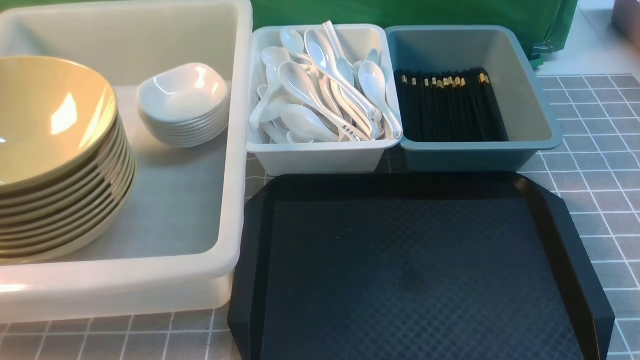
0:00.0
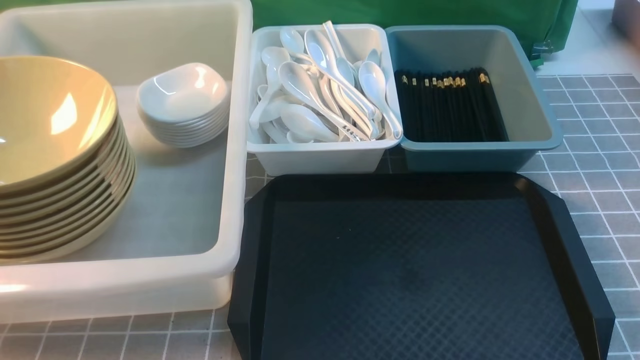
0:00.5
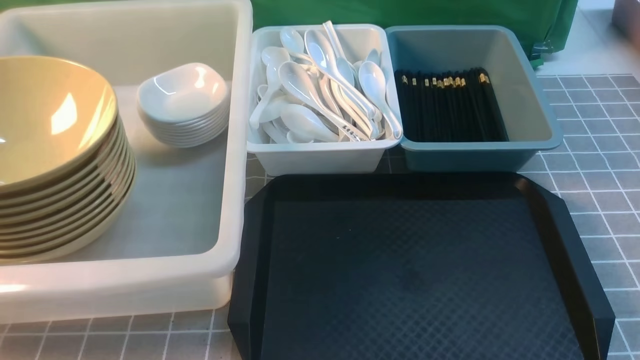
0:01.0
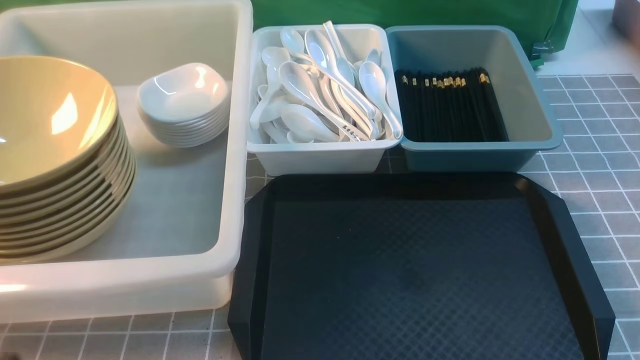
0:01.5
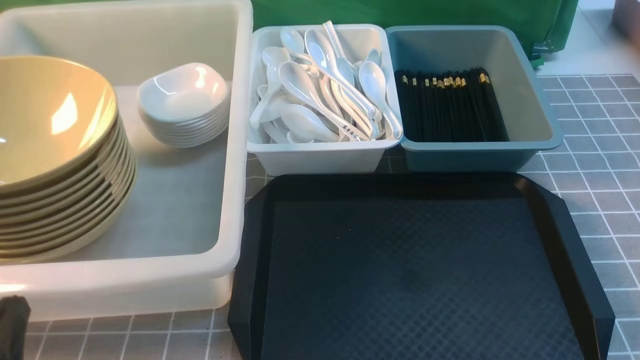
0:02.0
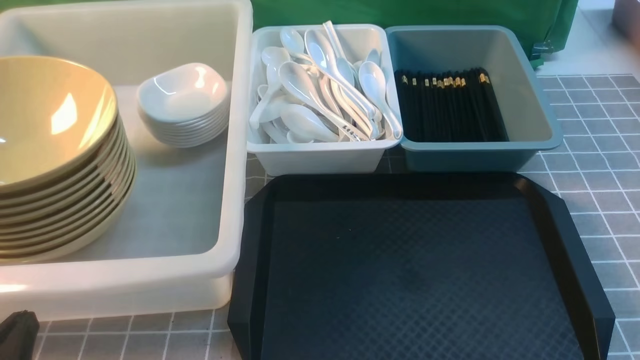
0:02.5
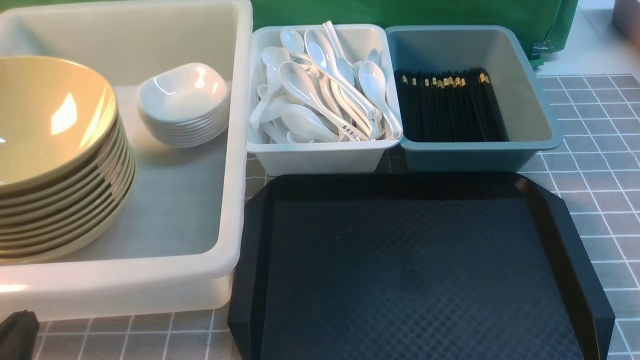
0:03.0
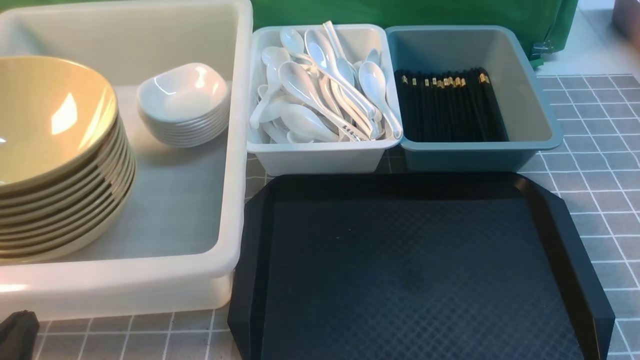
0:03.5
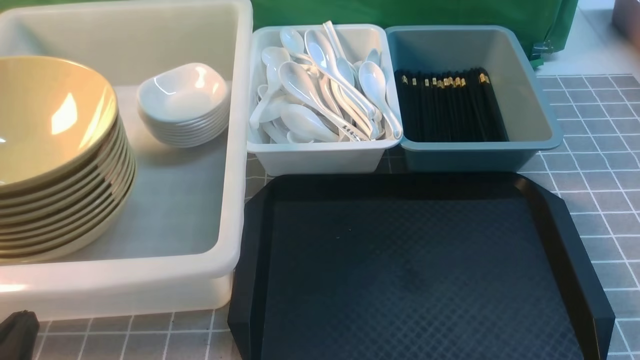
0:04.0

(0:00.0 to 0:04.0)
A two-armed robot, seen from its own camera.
Task of the whole recording: on grey table put chopsticks spoon bowls plates into blue grey white boxes.
0:00.0 - 0:02.0: The left gripper moves downward, some 15 cm.
0:02.0 - 0:04.0: Both grippers stay put.

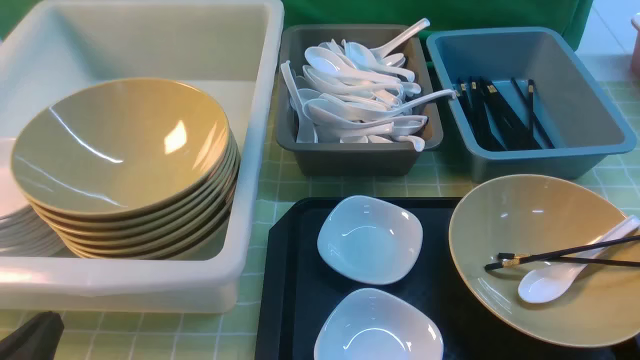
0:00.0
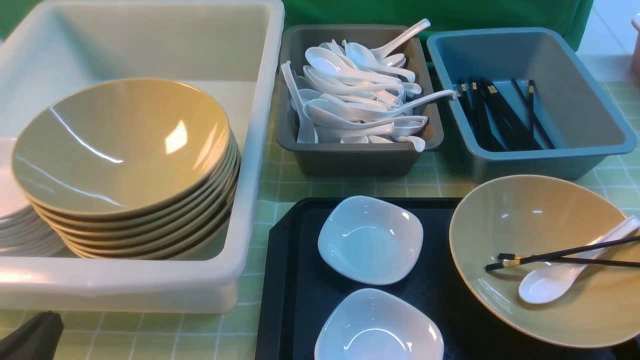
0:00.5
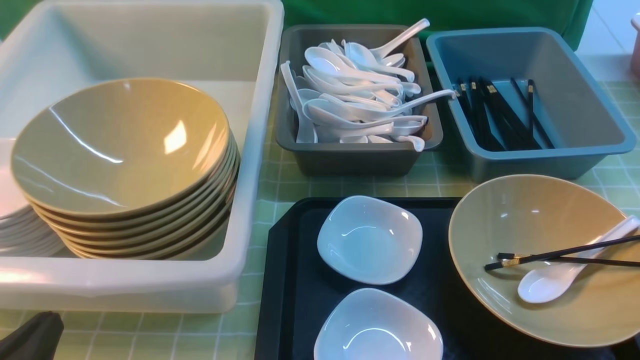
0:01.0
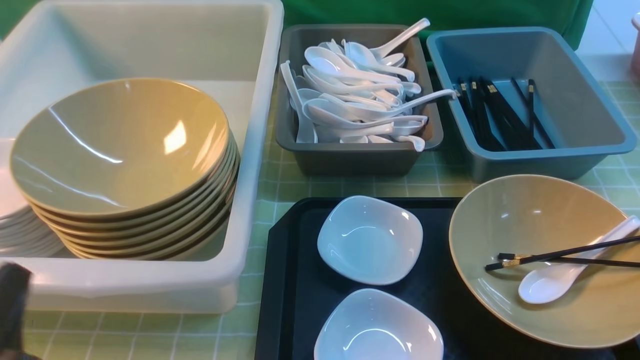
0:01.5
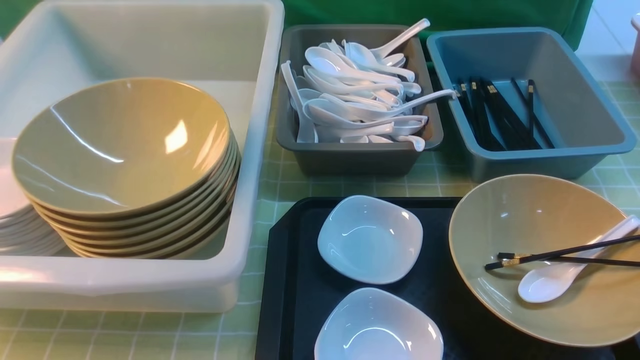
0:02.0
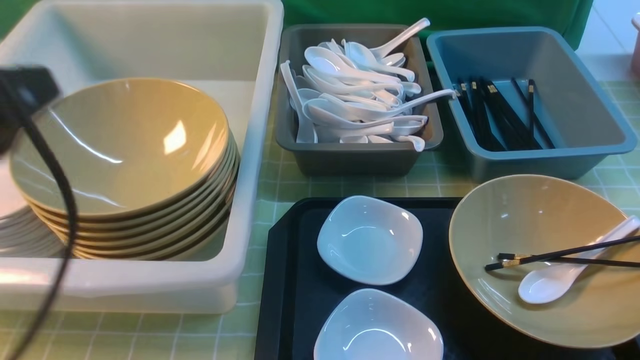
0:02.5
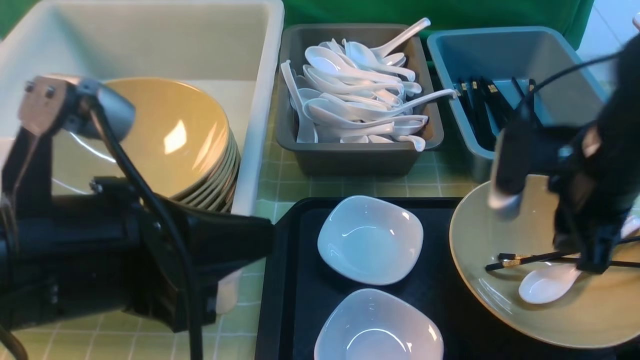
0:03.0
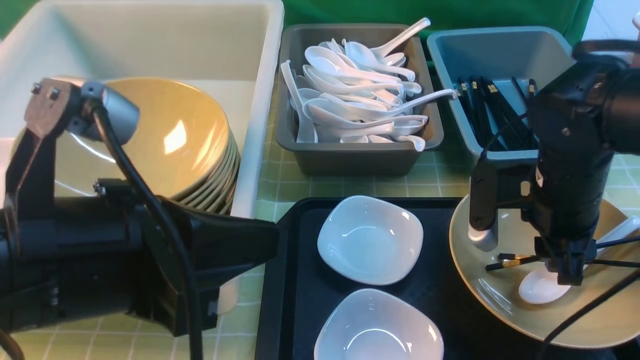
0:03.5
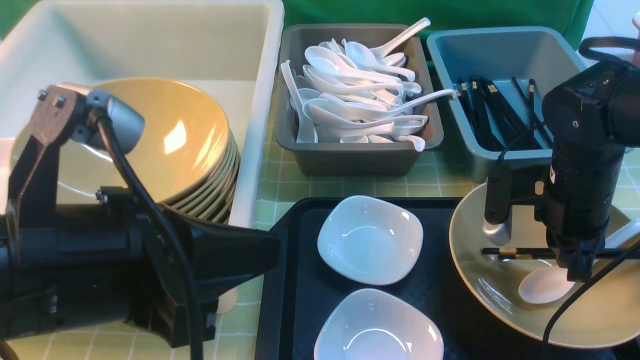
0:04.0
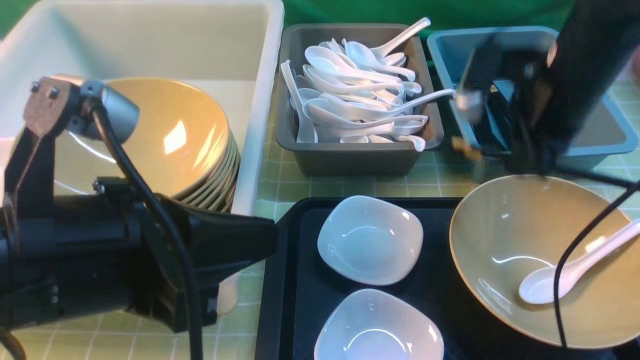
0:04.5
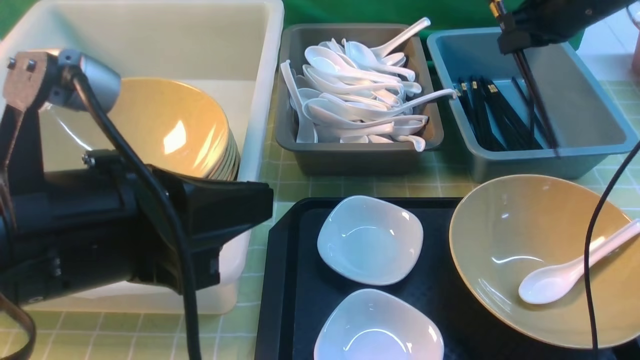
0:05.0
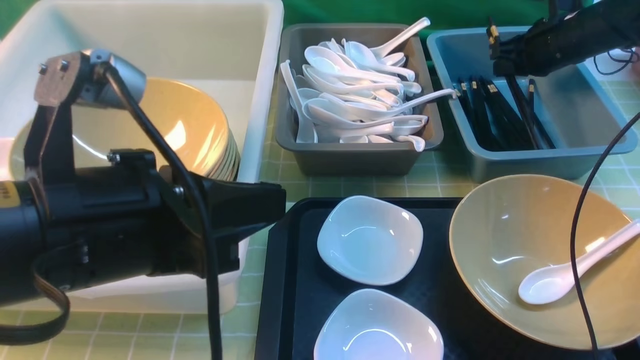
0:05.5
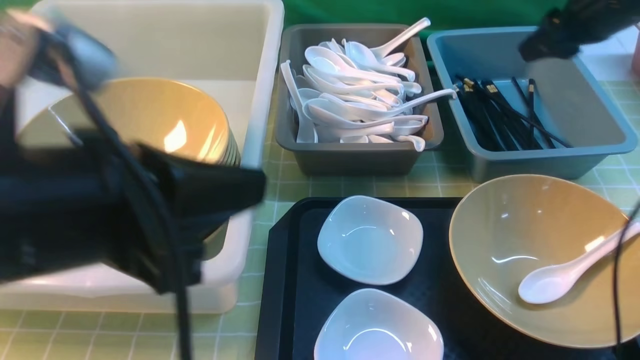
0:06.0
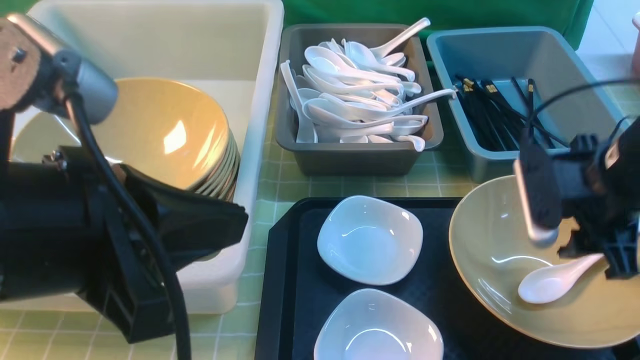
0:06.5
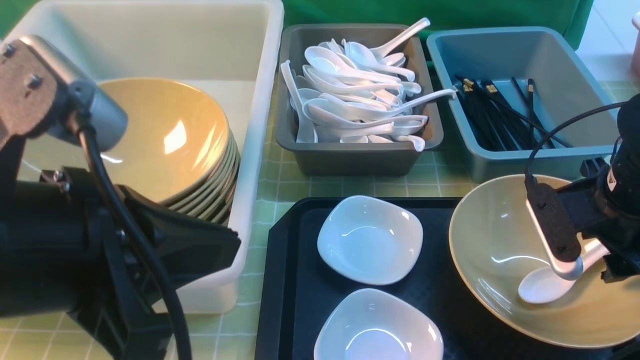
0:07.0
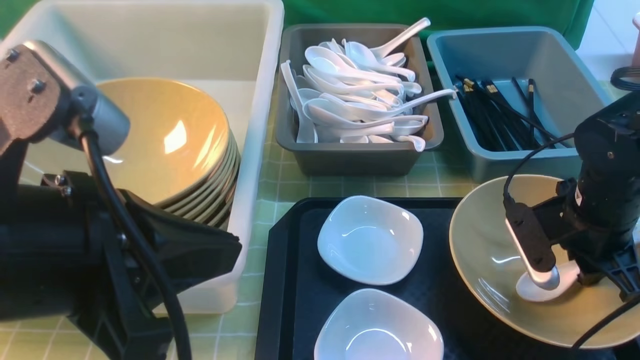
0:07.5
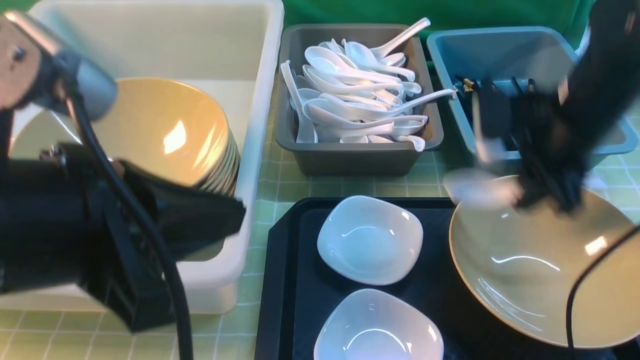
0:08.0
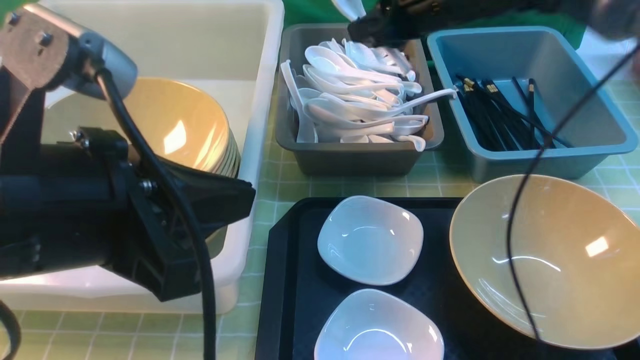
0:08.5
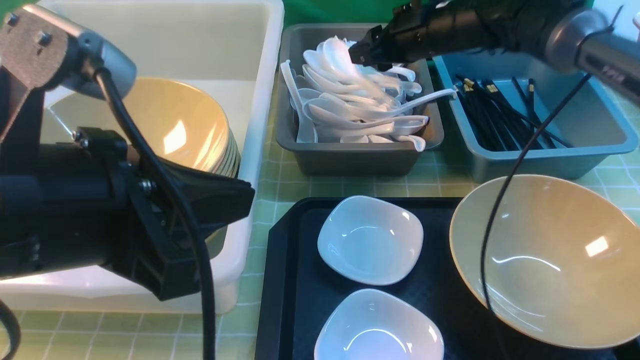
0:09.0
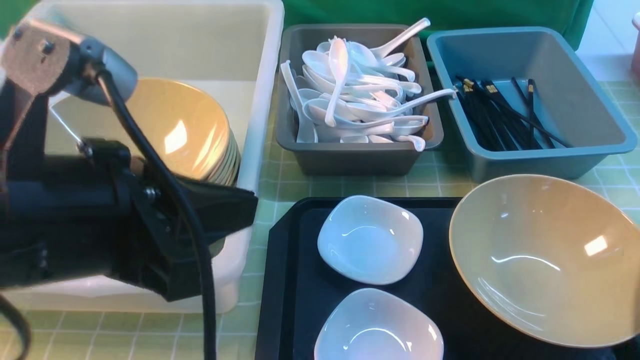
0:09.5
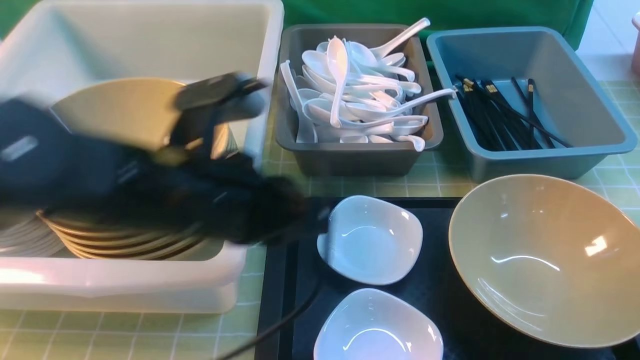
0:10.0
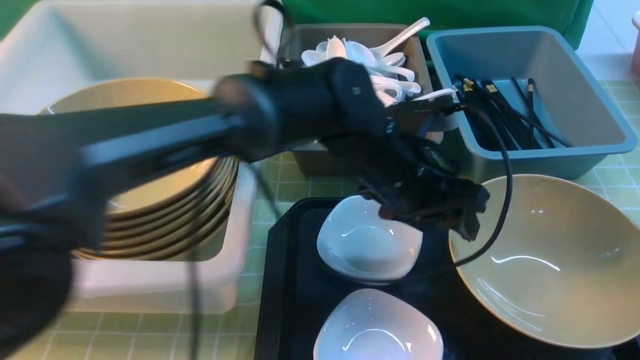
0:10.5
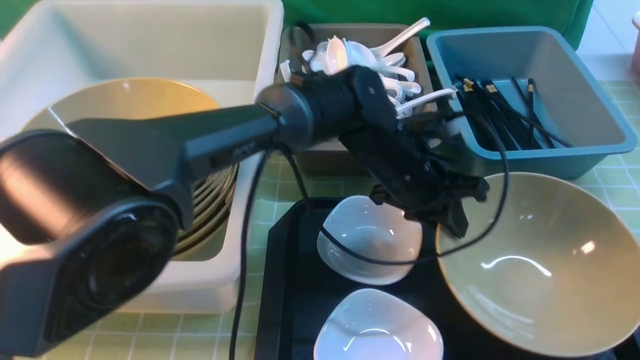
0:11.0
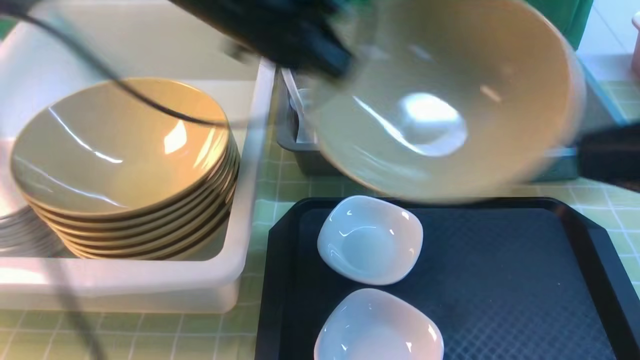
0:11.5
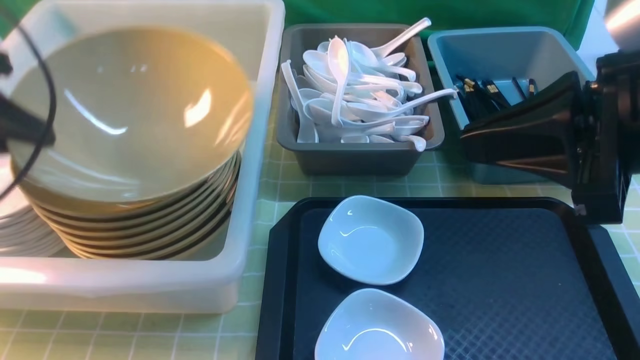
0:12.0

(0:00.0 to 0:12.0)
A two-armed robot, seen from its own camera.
Task of the whole recording: on green table put chopsticks spoon bowls plates into blue grey white boxes.
Step, 0:00.0 - 0:04.0: use the right arm to grab the chopsticks.
Step, 0:04.5 - 0:06.0: use the right arm to put the chopsticks into the small storage box on the right.
Step, 0:06.5 - 0:07.5: use the right arm to grab the soup spoon in the middle.
Step, 0:08.0 - 0:09.0: use the right arm to put the soup spoon into the small storage box in the middle.
Step, 0:09.5 - 0:11.0: use the left arm to grab the yellow noodle bowl on the left.
0:00.0 - 0:02.0: The left gripper travels upward by some 20 cm.
0:02.0 - 0:04.0: The right gripper goes some 35 cm forward and downward; the left gripper travels to the right and forward by about 15 cm.
0:04.0 - 0:06.0: The right gripper moves upward, forward and to the right, roughly 15 cm, and opens its fingers.
0:06.0 - 0:08.0: The right gripper heads to the left and backward, covering approximately 10 cm, and reaches approximately 15 cm downward, then returns.
0:08.0 - 0:10.0: The right gripper shifts roughly 25 cm backward and upward, and closes its fingers. Meanwhile the left gripper shifts some 15 cm forward, to the right and downward.
0:10.0 - 0:12.0: The right gripper is displaced forward and to the left by about 10 cm, while the left gripper is displaced to the left by approximately 25 cm, and opens, then closes again.

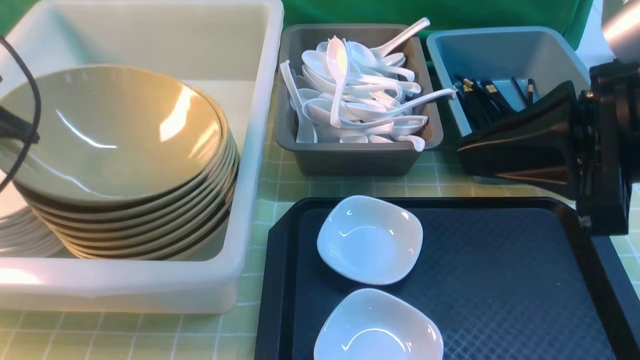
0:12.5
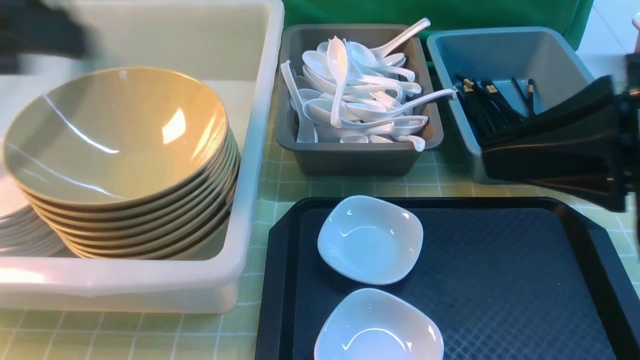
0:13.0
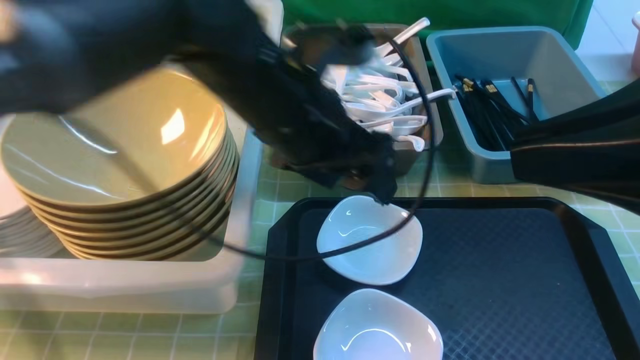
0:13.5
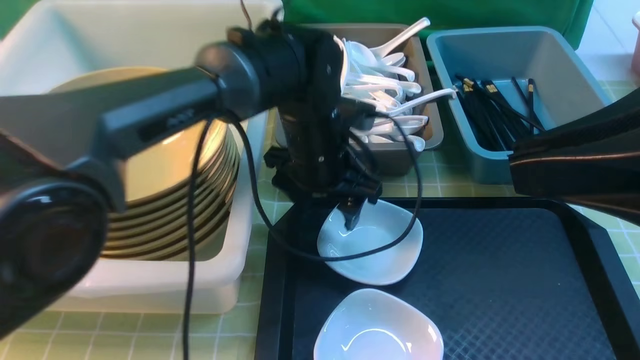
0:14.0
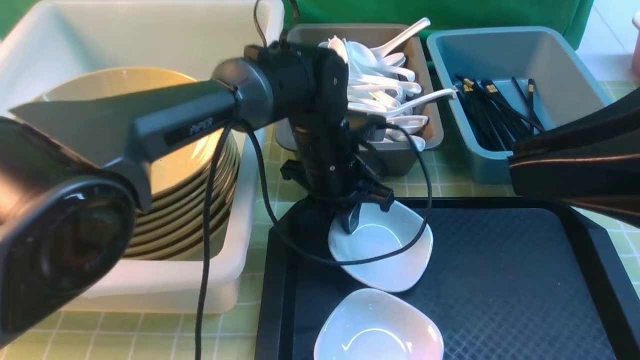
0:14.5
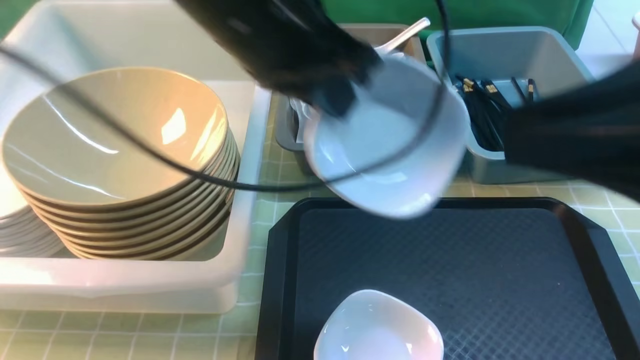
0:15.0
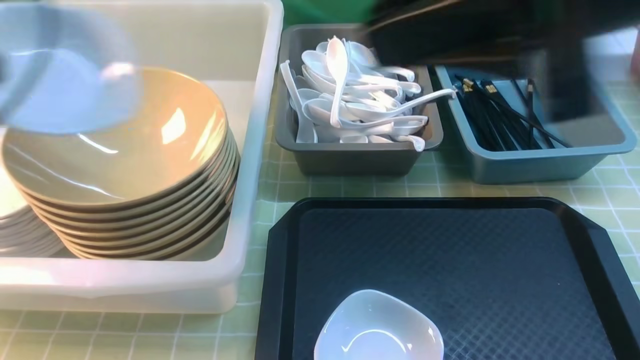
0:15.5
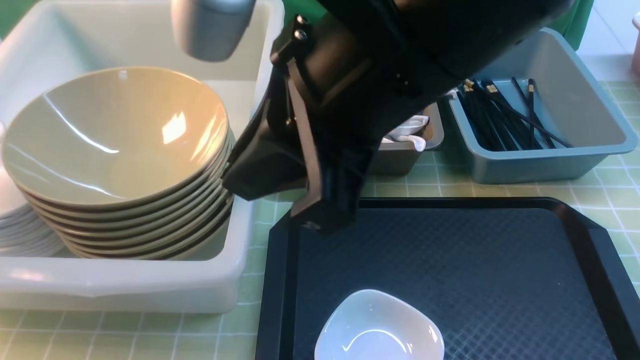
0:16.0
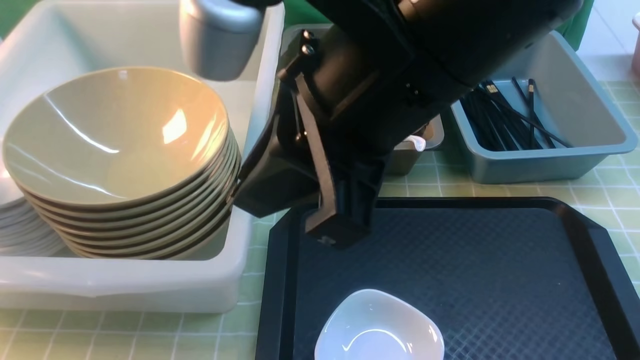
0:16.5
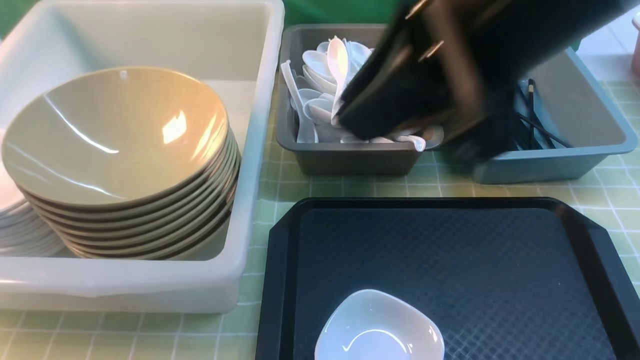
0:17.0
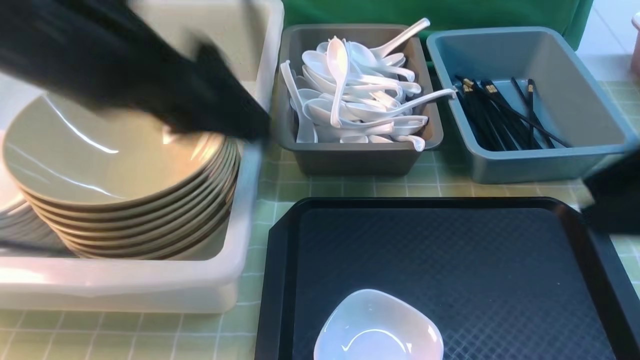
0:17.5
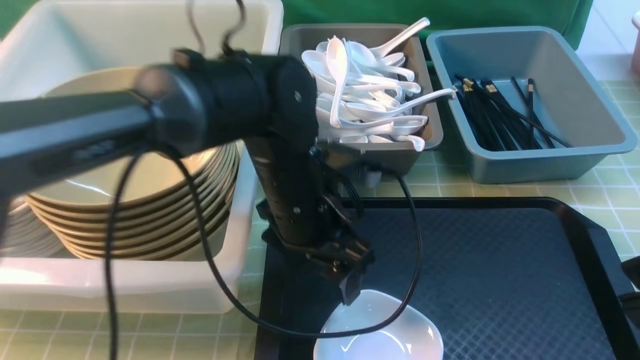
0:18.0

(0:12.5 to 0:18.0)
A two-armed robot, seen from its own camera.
Task of the whole recording: on green table put chopsticks spoon bowls plates into blue grey white boxes.
Step, 0:13.0 - 0:14.5: use the left arm to grab the plate.
Step, 0:15.0 - 0:16.5: use the left arm to put the plate into the large storage box on the left.
0:12.5 - 0:14.5: The left gripper moves to the right, some 35 cm, and closes its fingers; the right gripper travels backward by approximately 5 cm.
0:14.5 - 0:16.0: The left gripper goes roughly 40 cm to the left. Meanwhile the right gripper travels to the left by about 20 cm.
0:16.0 - 0:18.0: The left gripper goes approximately 40 cm to the right, and opens up. Meanwhile the right gripper goes approximately 20 cm to the right and backward.
